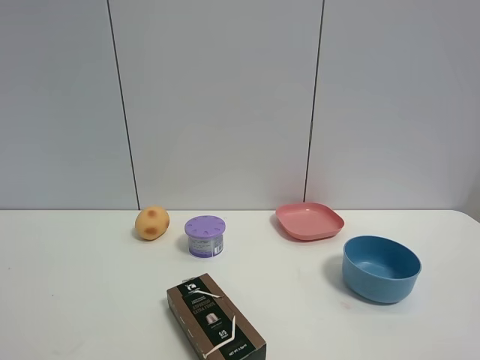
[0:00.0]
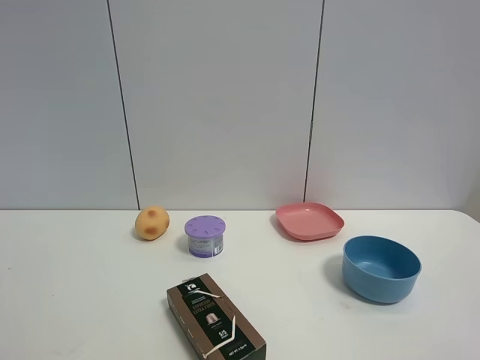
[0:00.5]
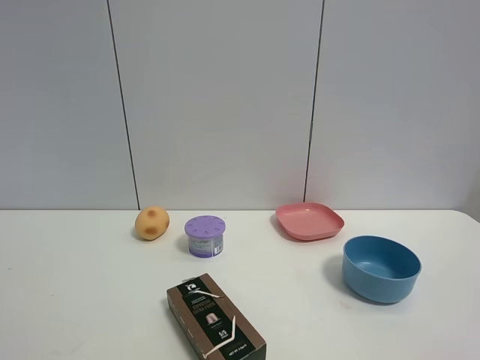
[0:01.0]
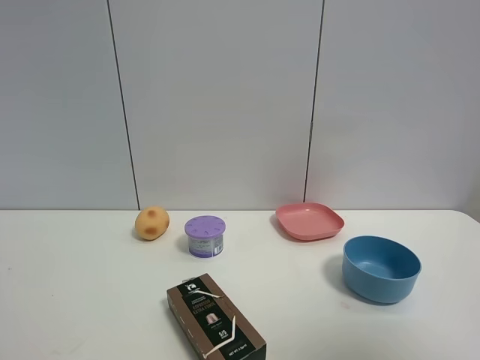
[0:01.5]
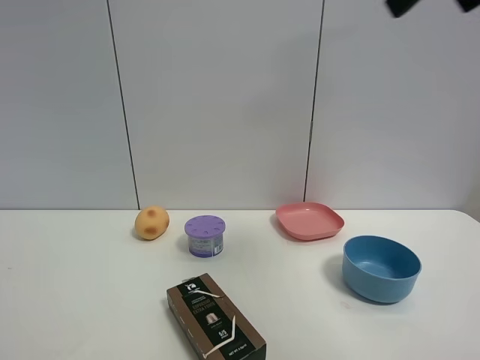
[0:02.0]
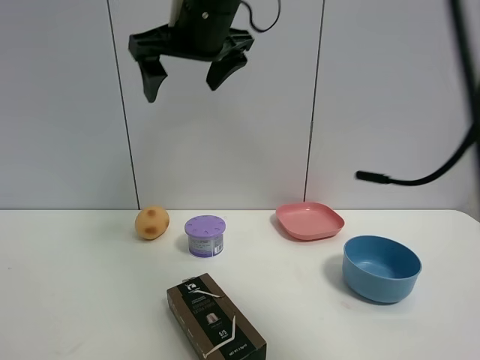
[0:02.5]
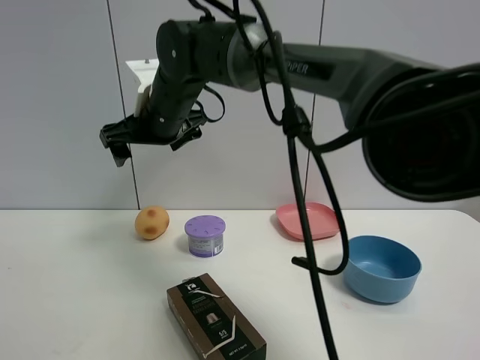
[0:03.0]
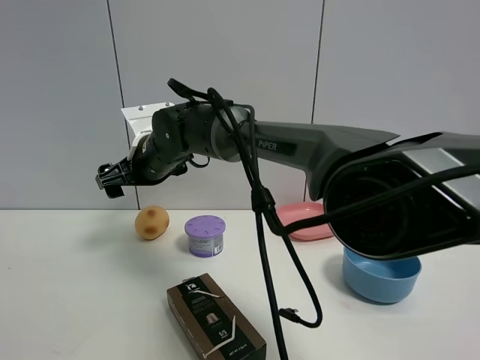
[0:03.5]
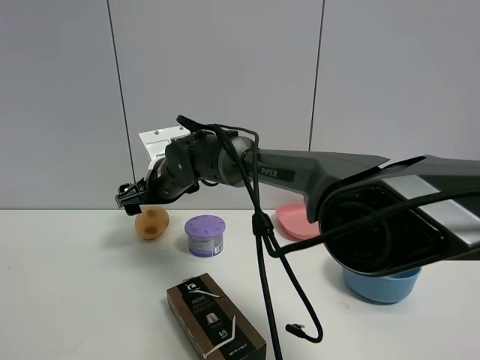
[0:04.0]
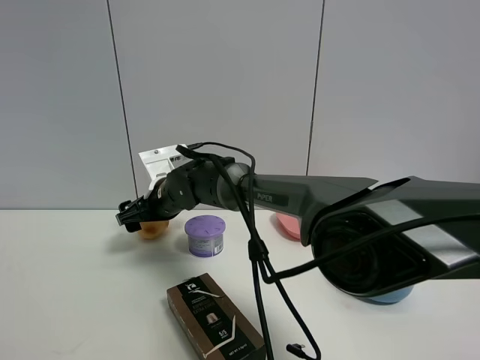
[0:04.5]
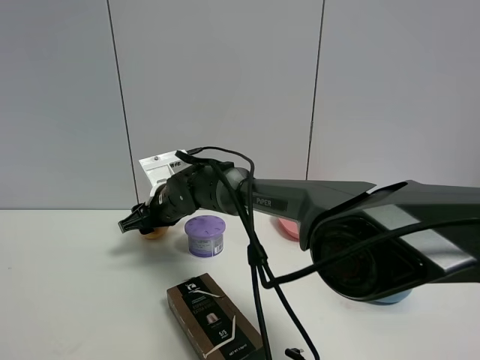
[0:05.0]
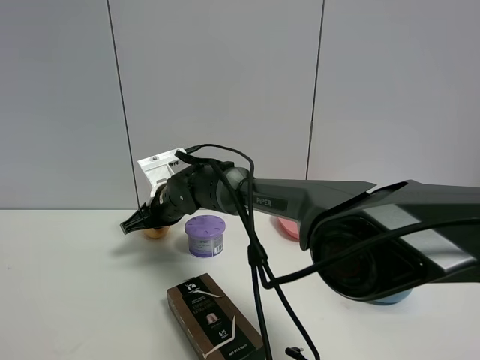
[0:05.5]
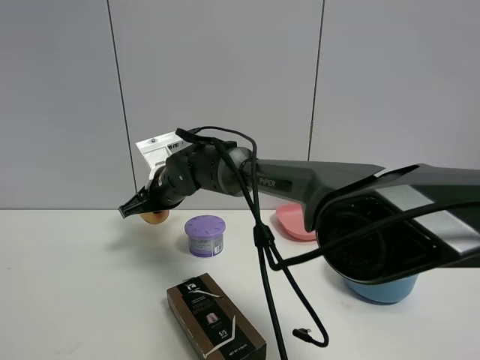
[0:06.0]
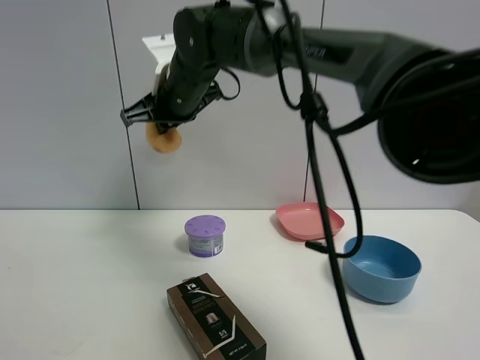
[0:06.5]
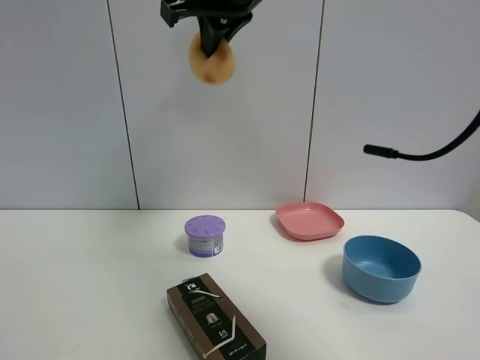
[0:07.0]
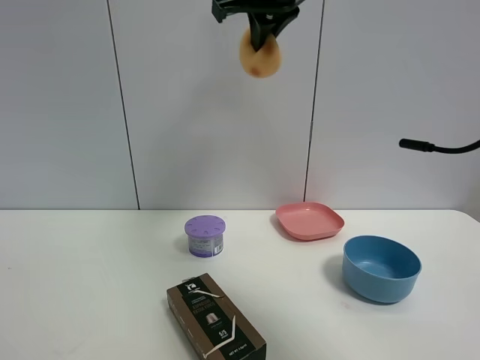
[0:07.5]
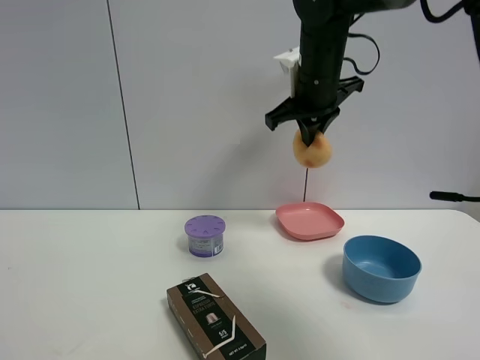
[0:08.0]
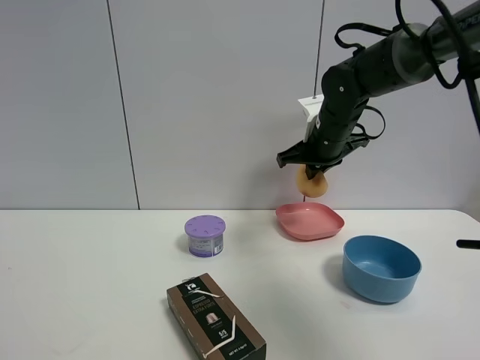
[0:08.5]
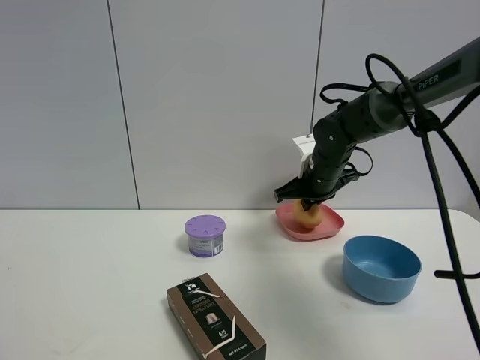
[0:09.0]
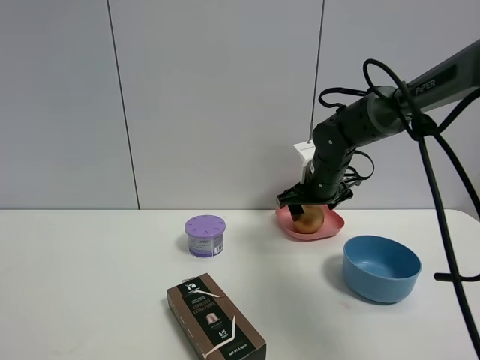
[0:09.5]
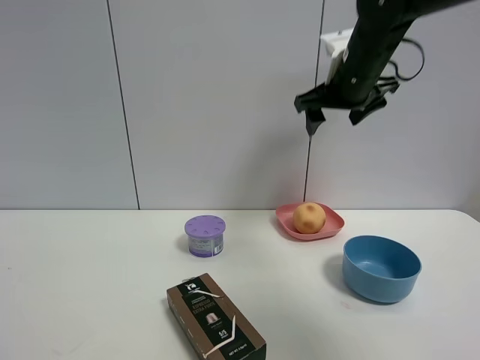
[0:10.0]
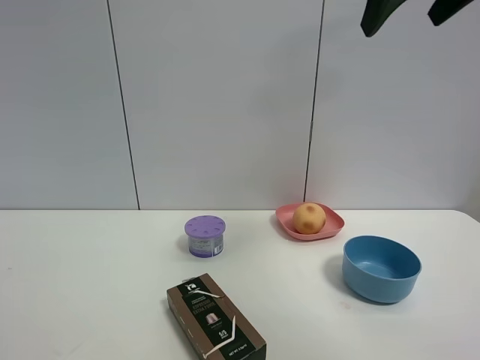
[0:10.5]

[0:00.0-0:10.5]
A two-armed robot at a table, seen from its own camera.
Task of the whole recording: the gripper move the object.
Step, 0:00.0 to 0:05.0: Grasp the egg yolk pastry with the right gripper.
Step, 0:05.5 to 0:09.5: Place the egg yolk pastry into the pink plate with the right gripper.
0:00.0 to 0:02.0: The right gripper moves forward, upward and to the left, approximately 35 cm.
0:02.0 to 0:04.0: The right gripper shifts some 50 cm downward, to the left and forward.
0:04.0 to 0:06.5: The right gripper moves upward, some 15 cm, and closes up.
0:06.5 to 0:08.5: The right gripper travels to the right and downward by approximately 25 cm.
0:08.5 to 0:10.5: The right gripper is displaced upward and backward by about 30 cm, and opens up.

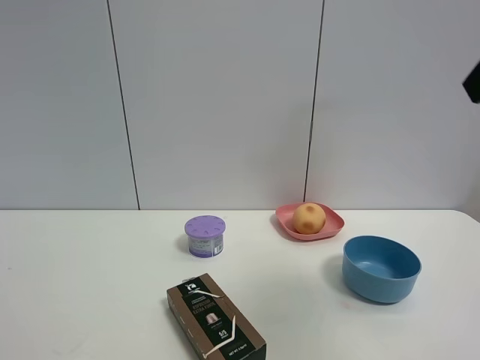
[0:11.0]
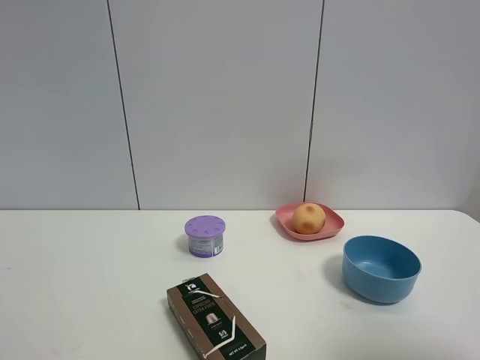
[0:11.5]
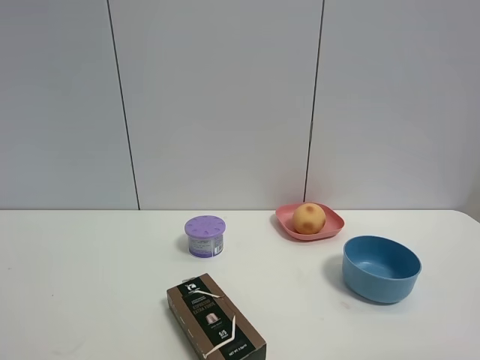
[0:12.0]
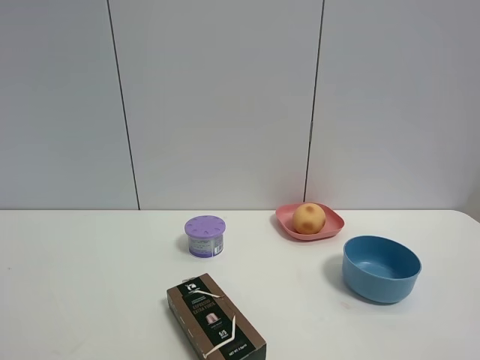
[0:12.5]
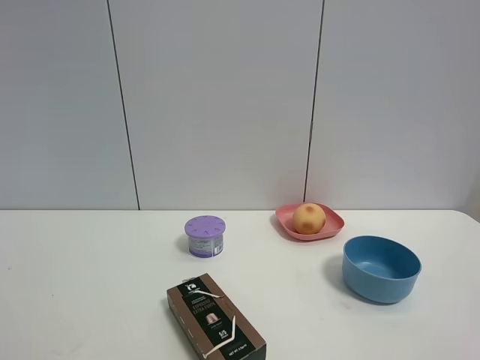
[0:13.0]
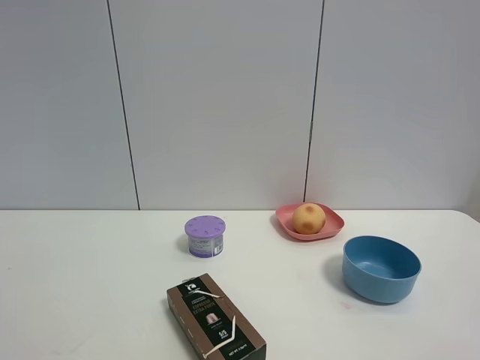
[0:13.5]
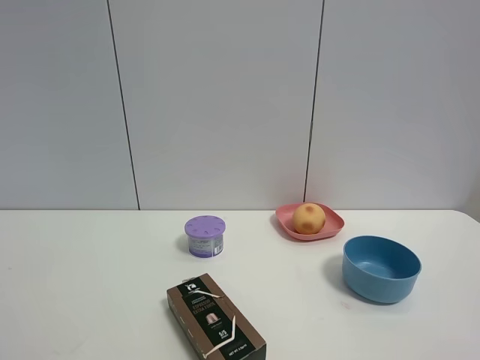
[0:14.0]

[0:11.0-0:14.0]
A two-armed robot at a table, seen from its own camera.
Task of the whole recording: the gripper move the object.
0:11.0 to 0:12.5: The right gripper moves backward and downward, roughly 20 cm.
0:12.5 to 0:14.0: The two grippers keep their place.

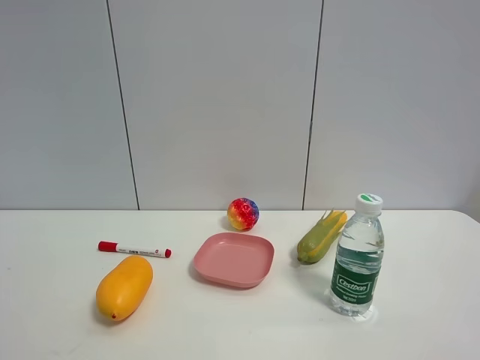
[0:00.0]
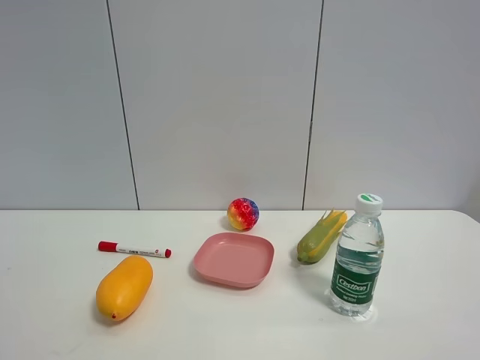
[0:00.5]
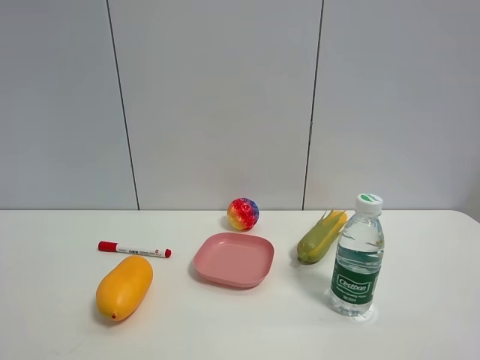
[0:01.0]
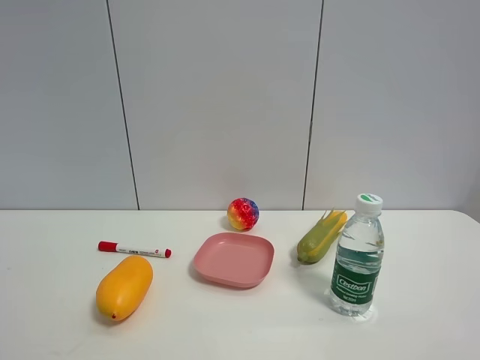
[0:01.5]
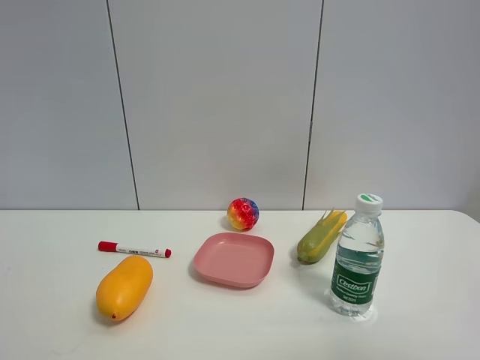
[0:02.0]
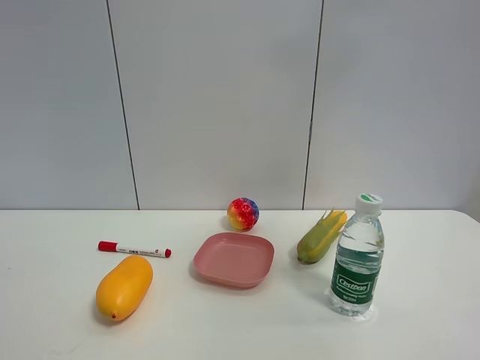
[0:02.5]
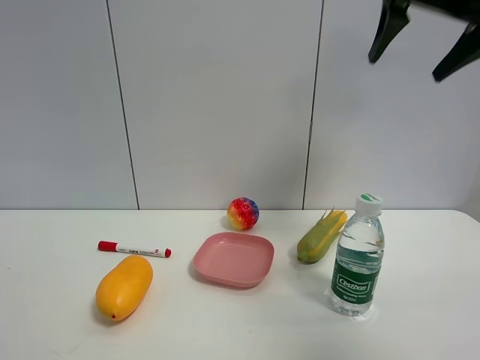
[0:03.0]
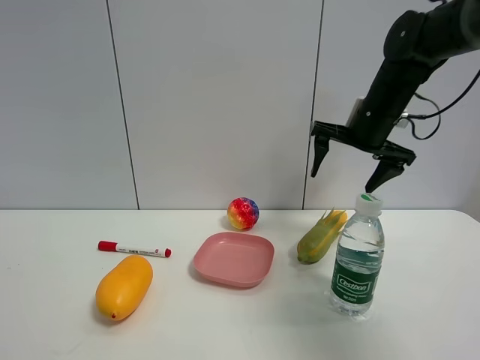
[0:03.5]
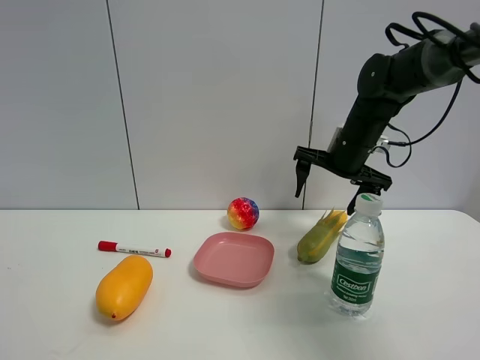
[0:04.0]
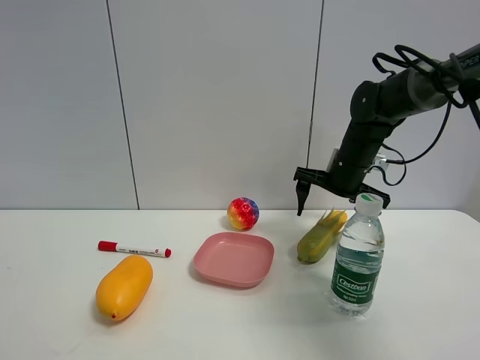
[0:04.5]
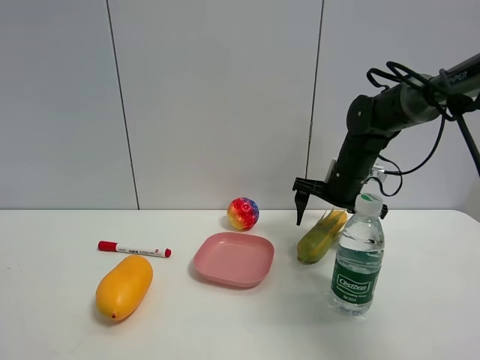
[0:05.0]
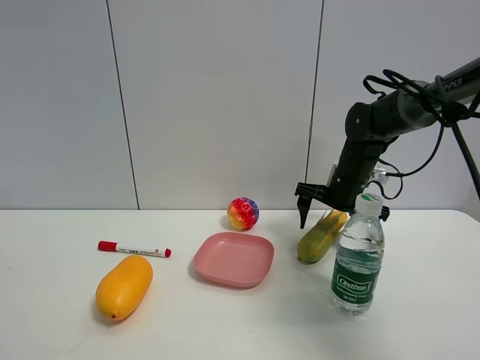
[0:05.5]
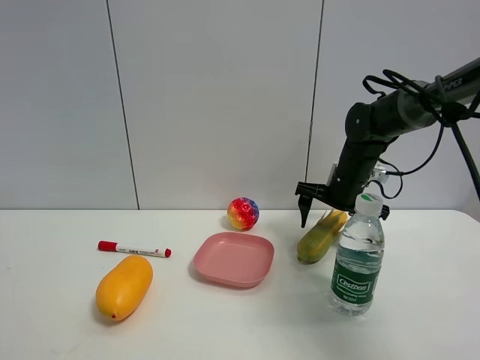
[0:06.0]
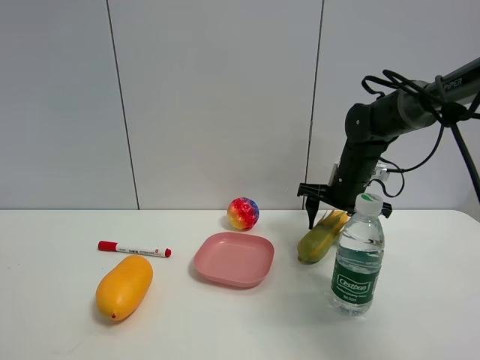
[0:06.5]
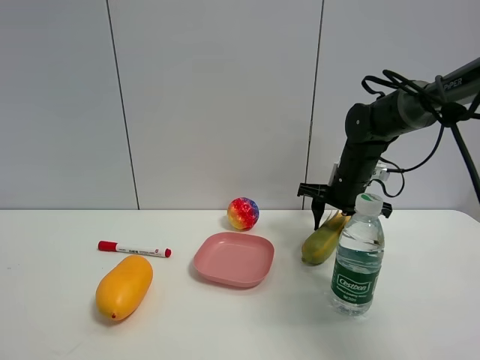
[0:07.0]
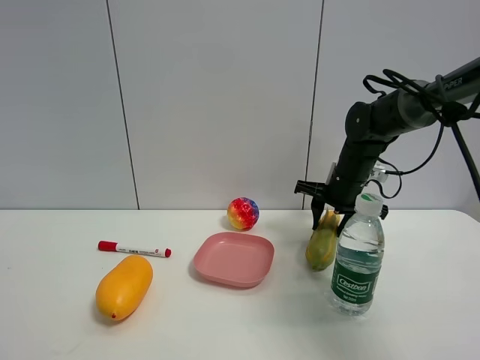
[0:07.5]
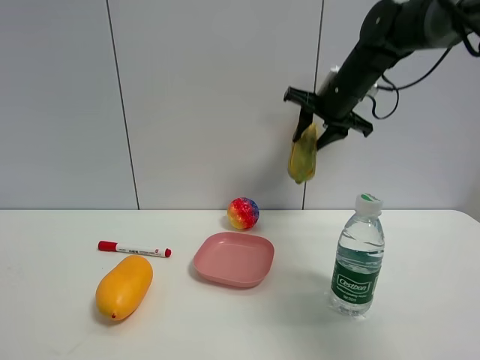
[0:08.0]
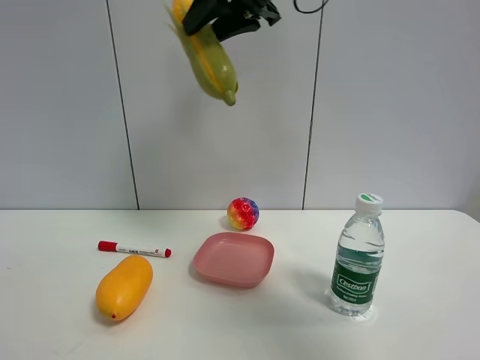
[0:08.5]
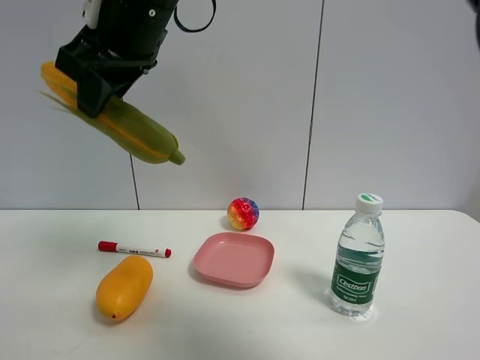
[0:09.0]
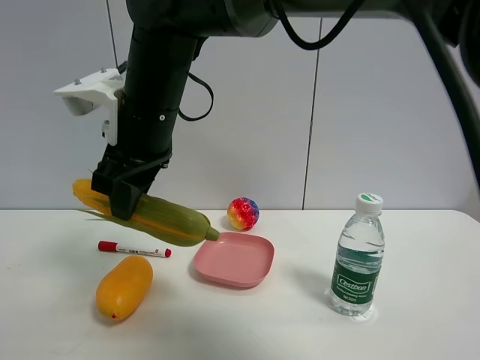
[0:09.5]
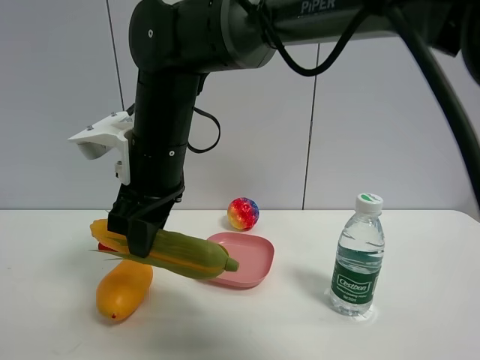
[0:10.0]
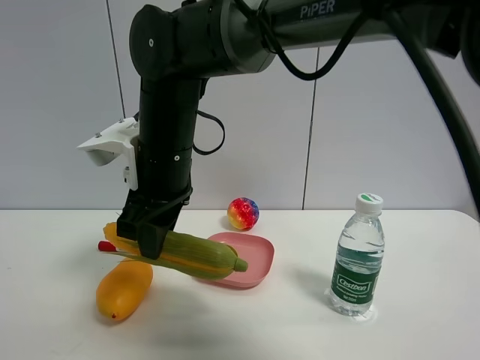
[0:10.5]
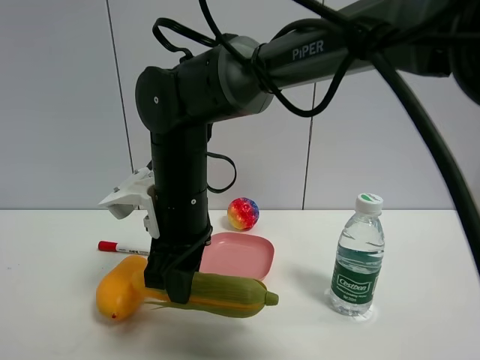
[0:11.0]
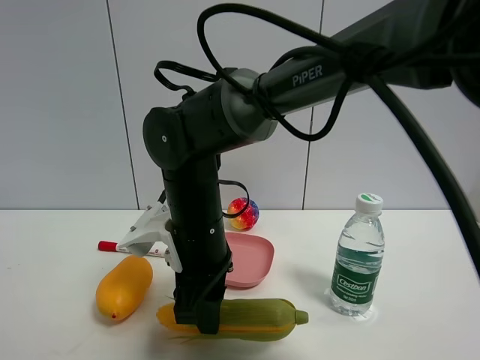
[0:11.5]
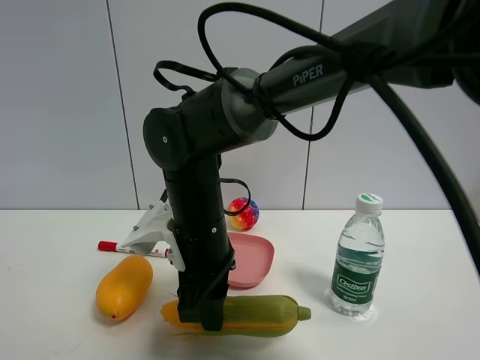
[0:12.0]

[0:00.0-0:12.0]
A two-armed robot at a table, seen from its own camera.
Task of the whole recording: the gripper move the object.
Step, 0:00.0 to 0:07.0: Grasp the corn with the right gripper.
0:02.0 to 0:04.0: The right gripper shifts roughly 50 cm forward and downward.
0:04.0 to 0:06.0: The right gripper shifts some 5 cm downward.
0:06.0 to 0:08.0: The right gripper travels upward by approximately 15 cm, and closes.
0:08.0 to 0:10.0: The right gripper goes roughly 30 cm to the left and backward.
0:10.0 to 0:12.0: The right gripper travels downward by about 10 cm.
